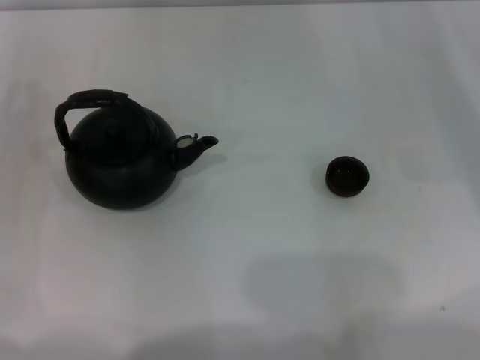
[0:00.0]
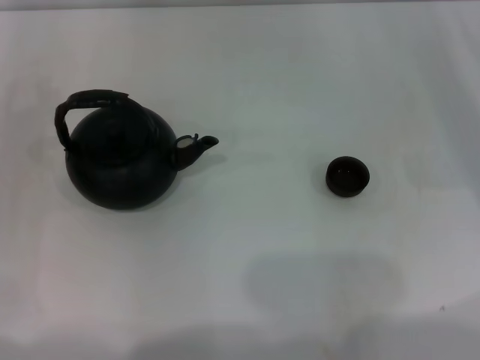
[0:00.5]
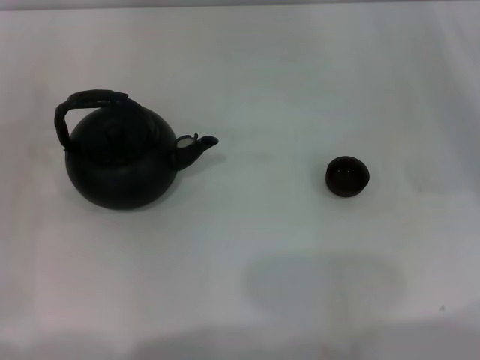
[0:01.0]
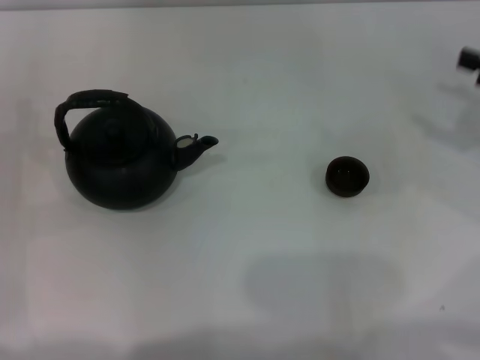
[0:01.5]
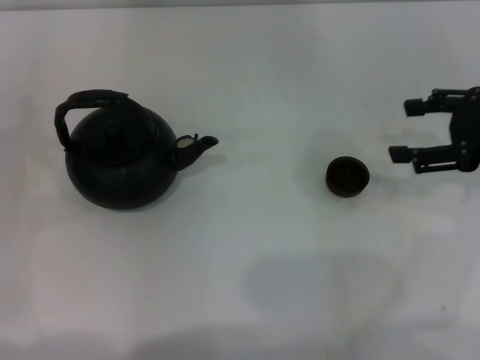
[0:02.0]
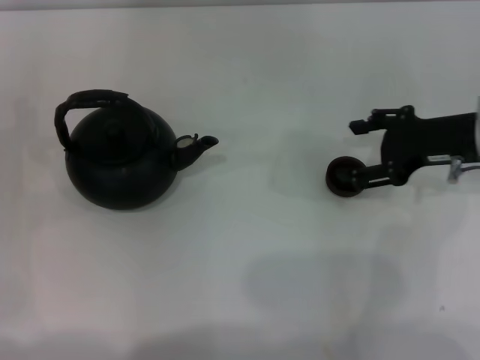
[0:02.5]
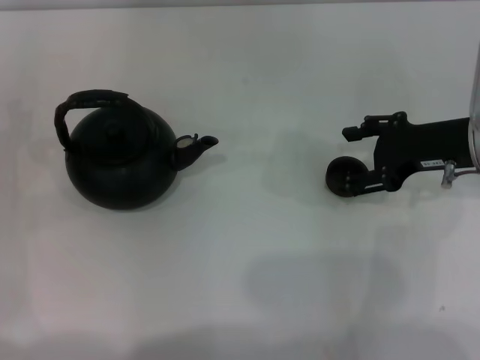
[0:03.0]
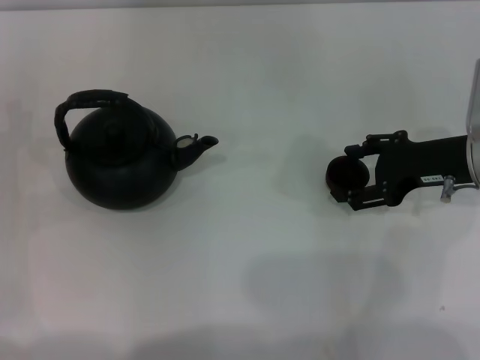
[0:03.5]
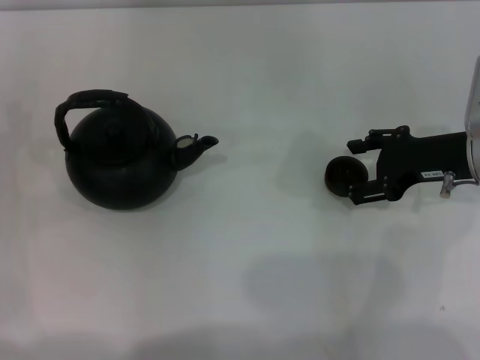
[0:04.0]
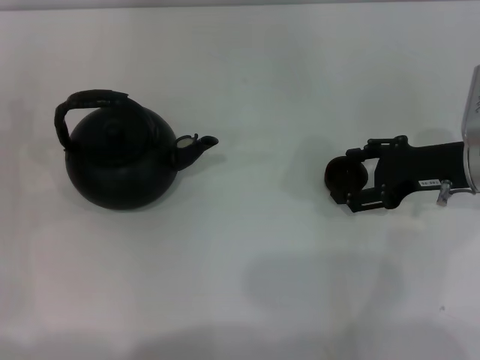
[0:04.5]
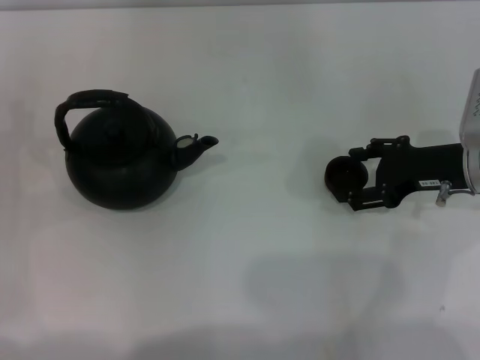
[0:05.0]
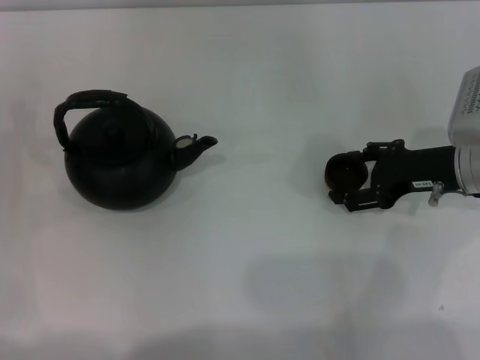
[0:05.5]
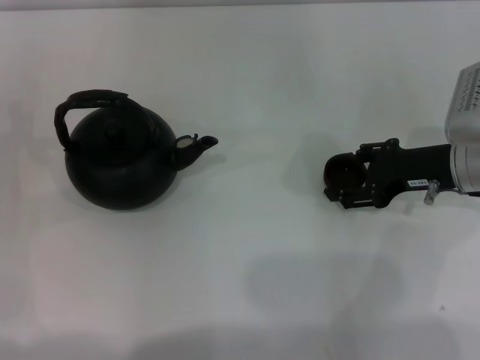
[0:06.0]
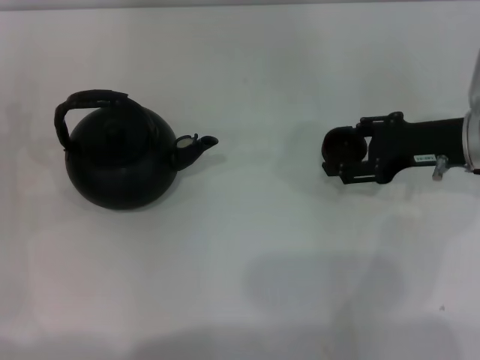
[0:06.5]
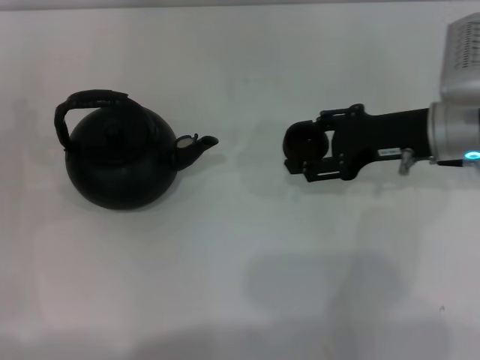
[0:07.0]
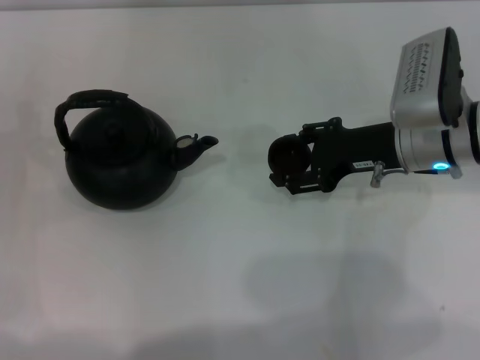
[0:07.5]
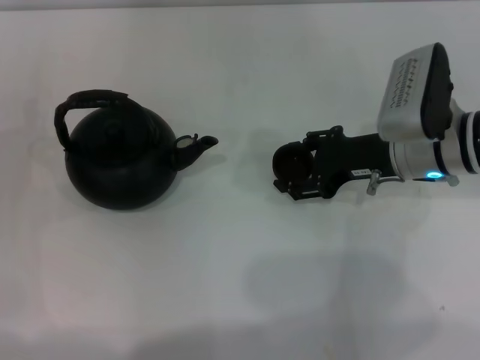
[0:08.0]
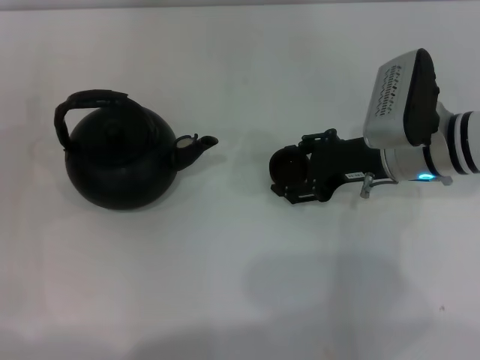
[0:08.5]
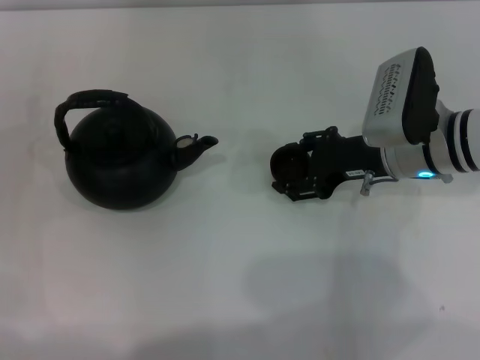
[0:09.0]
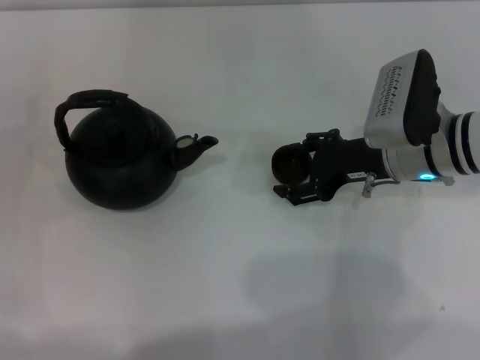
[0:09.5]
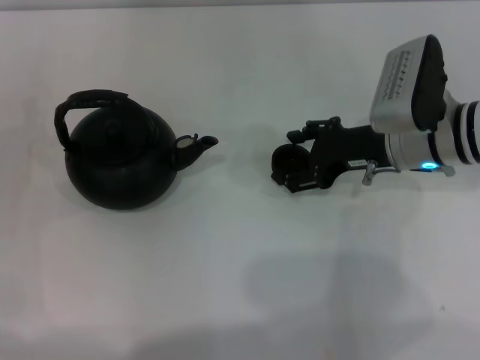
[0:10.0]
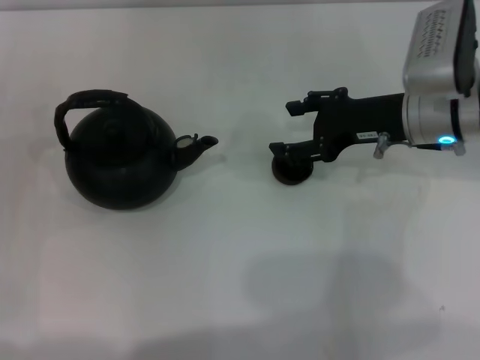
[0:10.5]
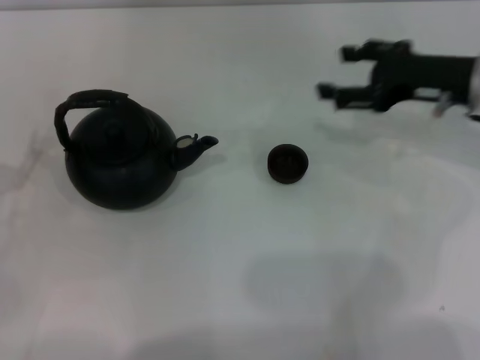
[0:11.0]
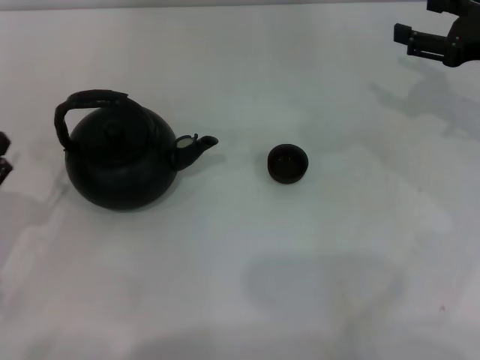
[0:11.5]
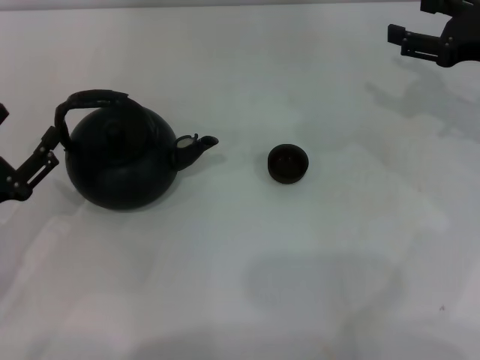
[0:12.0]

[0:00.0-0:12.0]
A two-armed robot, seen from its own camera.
Task of the whole recording: Grasp the handle of the teapot with one hand and pour tea into the teacup.
Step, 0:00.0 to 0:06.0: Pick up the teacup with the right gripper.
Step, 0:06.5 to 0:10.5: Place the teacup in the center of view with the right gripper.
0:00.0 to 0:02.0: The right gripper is displaced upward and to the left by about 10 cm.
0:02.0 to 0:04.0: The right gripper goes roughly 10 cm downward and to the left.
0:04.0 to 0:06.0: The grippers stay close to where they were, moving slightly.
0:06.0 to 0:08.0: The right gripper moves to the left, some 5 cm, and closes.
0:08.0 to 0:10.0: The right gripper opens up.
0:10.0 to 0:12.0: The right gripper is displaced to the right and upward by roughly 15 cm. The left gripper moves backward, about 5 cm.

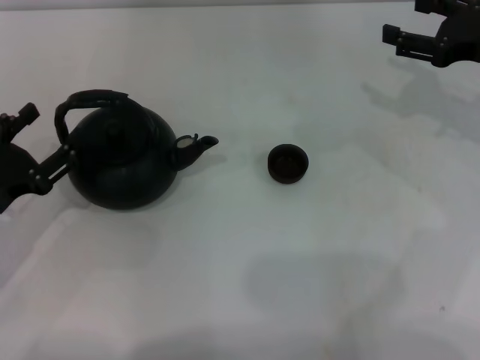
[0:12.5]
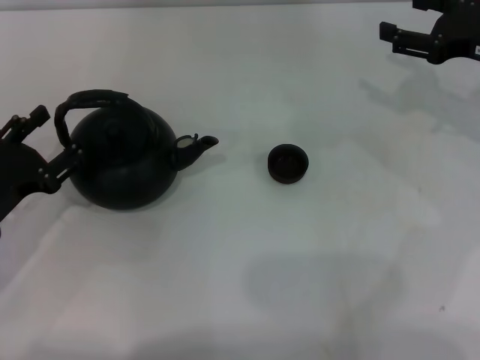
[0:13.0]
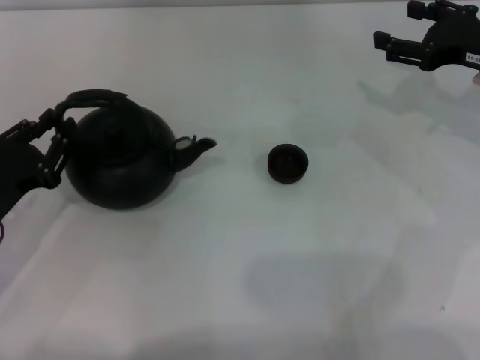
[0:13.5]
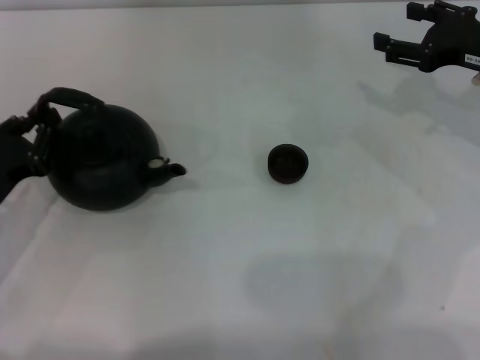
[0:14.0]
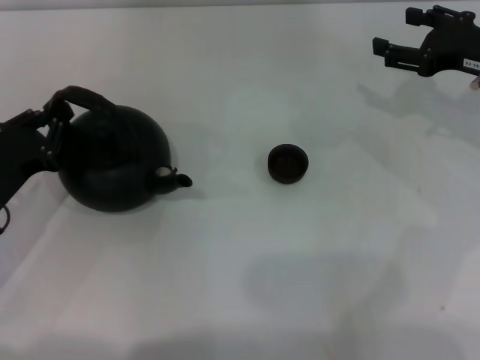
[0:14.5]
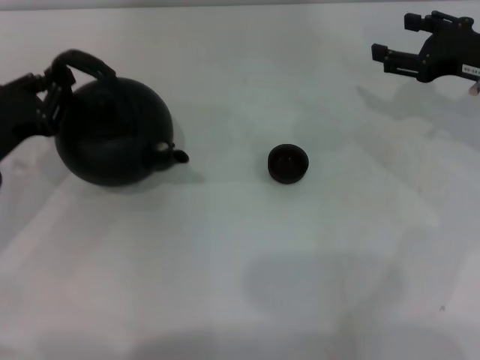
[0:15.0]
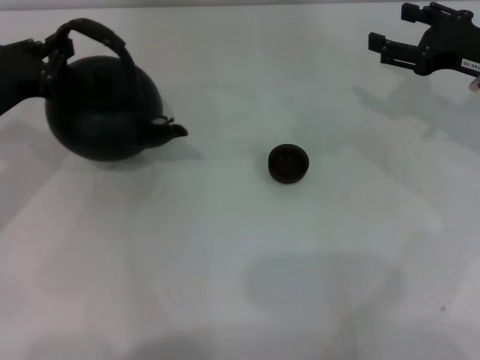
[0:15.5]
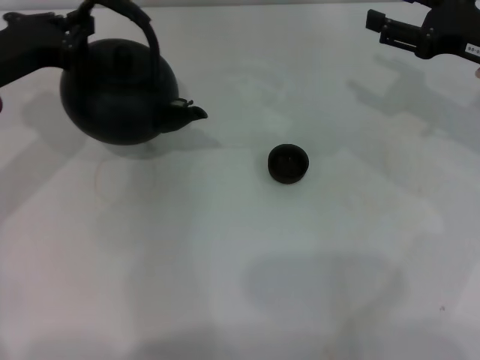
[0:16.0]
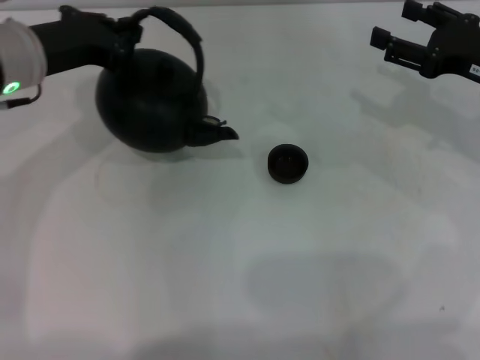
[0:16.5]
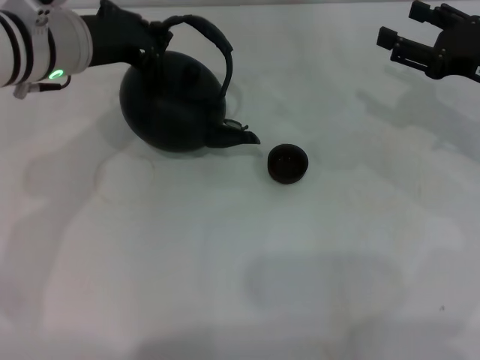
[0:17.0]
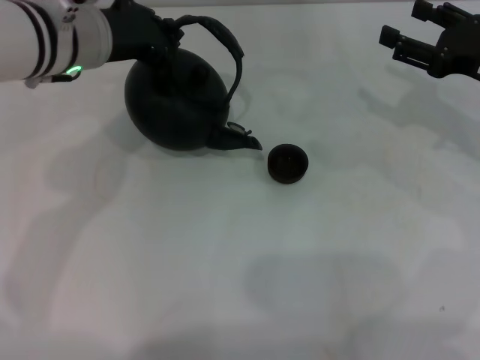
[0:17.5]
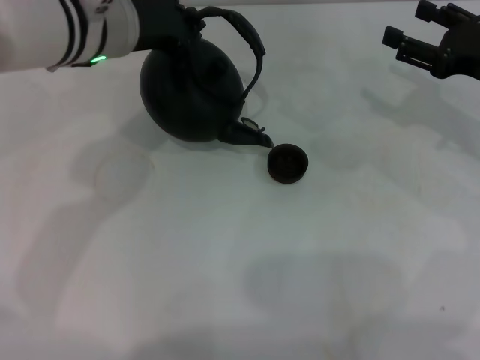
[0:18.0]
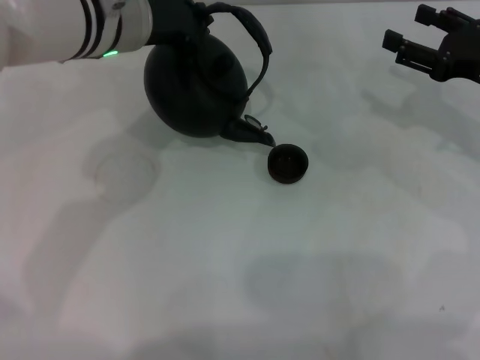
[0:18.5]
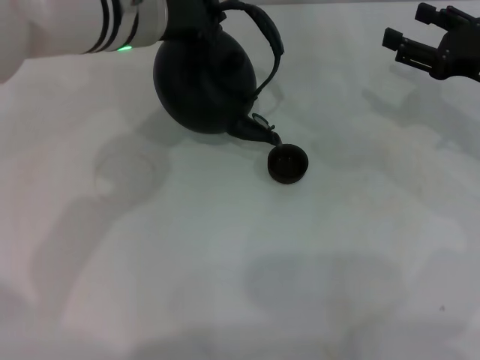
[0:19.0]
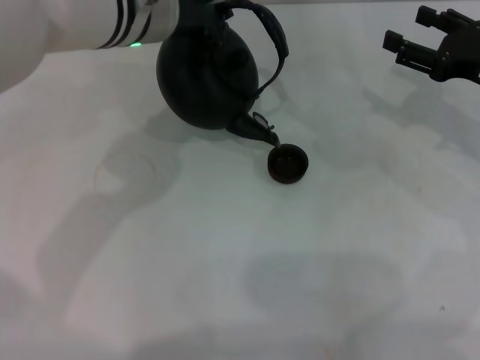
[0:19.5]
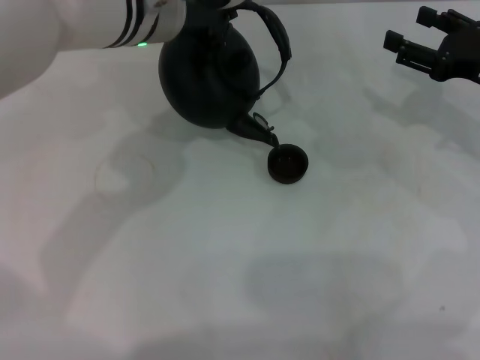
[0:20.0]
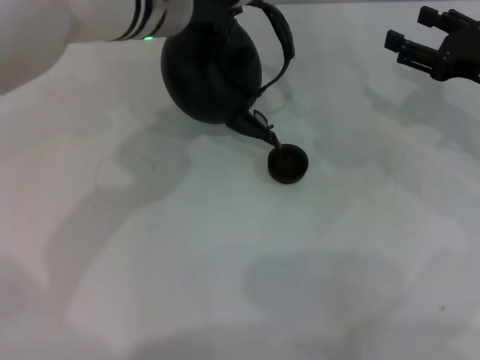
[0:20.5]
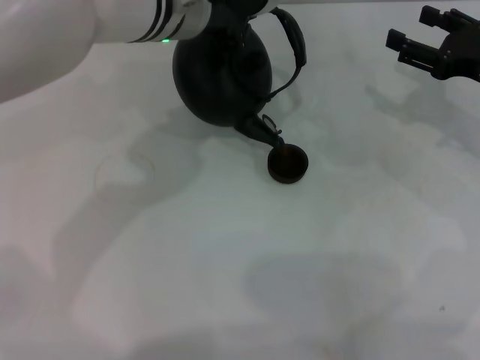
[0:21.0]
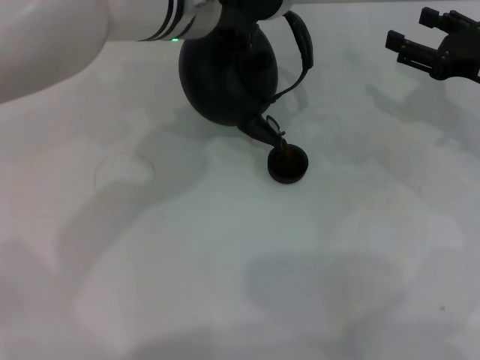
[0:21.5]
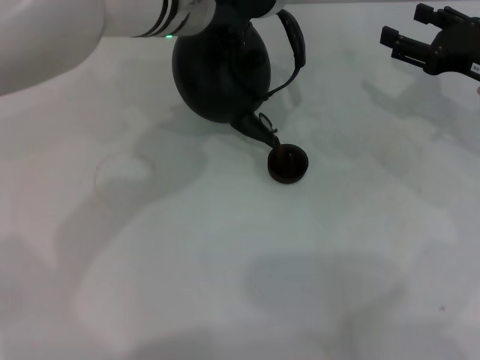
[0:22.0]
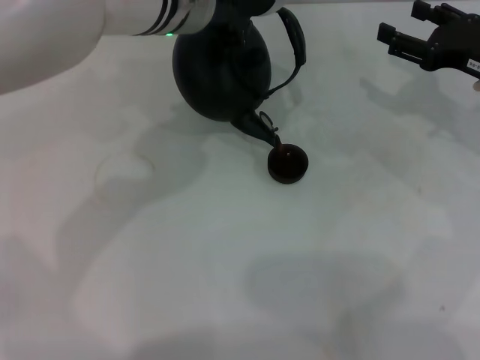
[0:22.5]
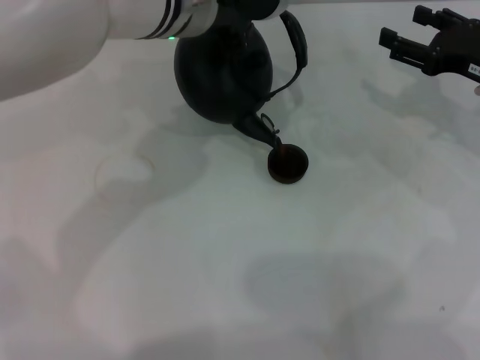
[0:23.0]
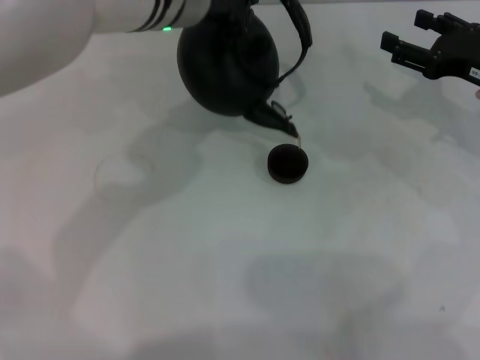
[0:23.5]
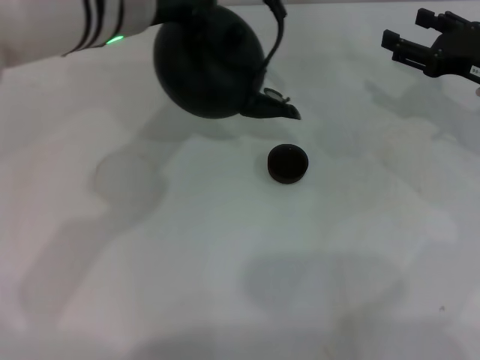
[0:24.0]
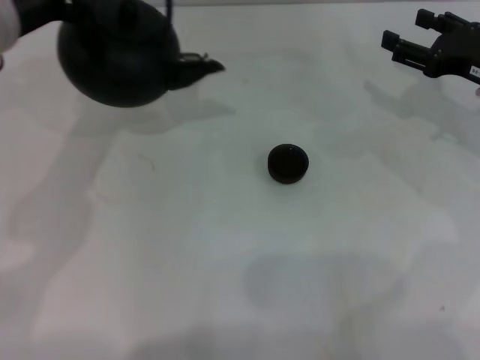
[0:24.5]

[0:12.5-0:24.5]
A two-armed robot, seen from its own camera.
Task of the whole recording: Grasp the handle of the teapot with one hand and pour tea into the teacup.
Step, 0:12.5 to 0:16.5: Pick up the teapot with the left gripper.
Step, 0:17.0 to 0:24.0: Pour tea into the teacup with the left gripper.
0:12.5 to 0:14.5: The left gripper closes.
0:14.5 to 0:16.5: The left gripper heads upward, forward and to the right, covering about 20 cm.
0:16.5 to 0:18.5: The left gripper goes approximately 10 cm to the right.
0:18.5 to 0:22.5: The grippers make only small movements.
0:22.5 to 0:24.5: The left gripper is displaced to the left by roughly 15 cm.

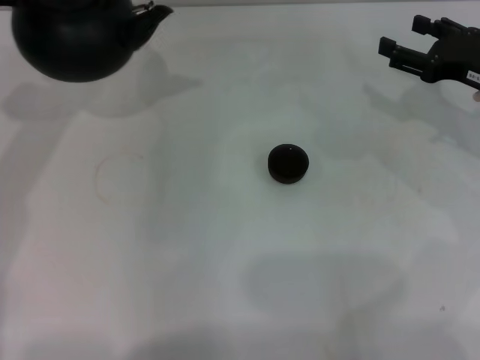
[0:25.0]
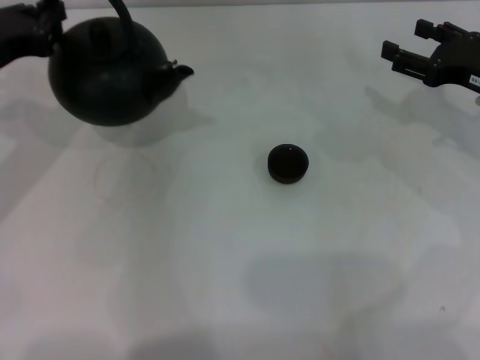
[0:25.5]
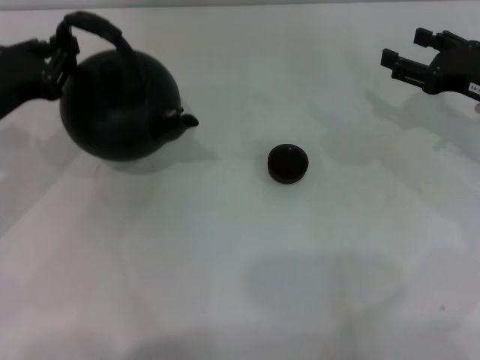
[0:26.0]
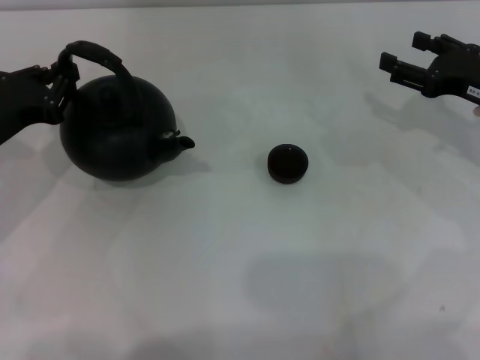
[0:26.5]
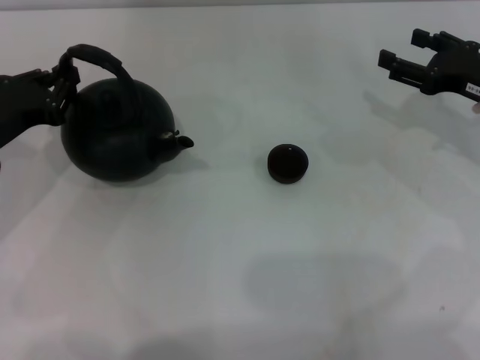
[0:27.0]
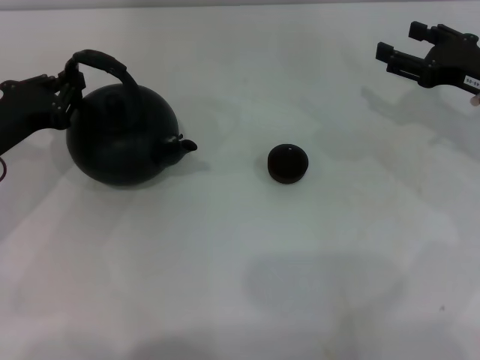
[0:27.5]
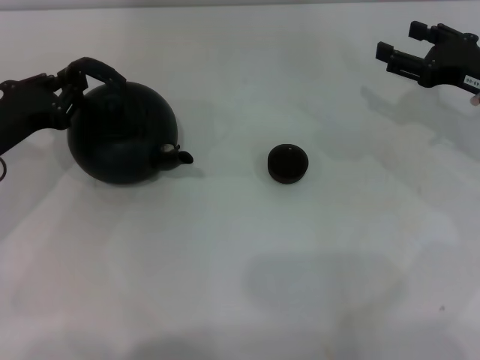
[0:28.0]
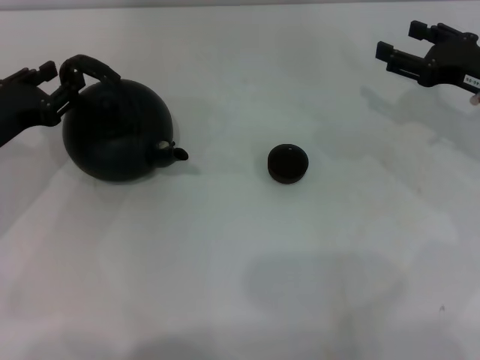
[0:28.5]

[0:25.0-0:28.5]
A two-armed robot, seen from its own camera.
Task of the whole recording: Grasp the handle of the teapot with one hand and pour tea into the teacup.
0:25.0 to 0:27.0: The left gripper heads downward, covering some 10 cm.
0:27.0 to 0:28.5: The left gripper opens.
